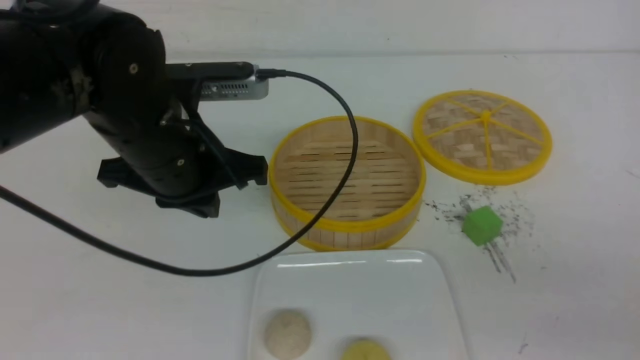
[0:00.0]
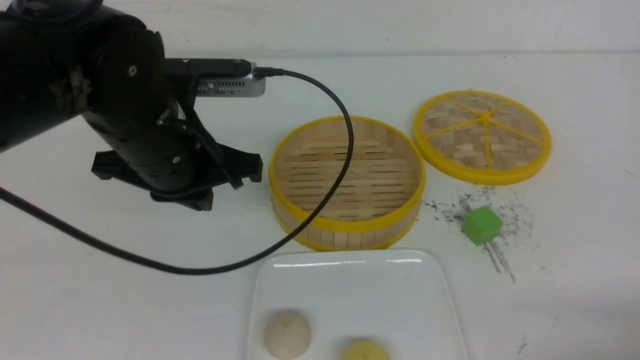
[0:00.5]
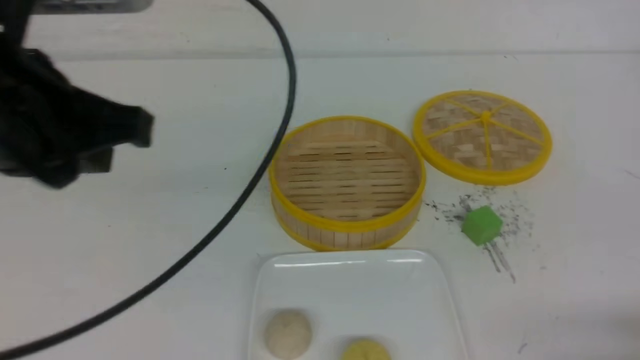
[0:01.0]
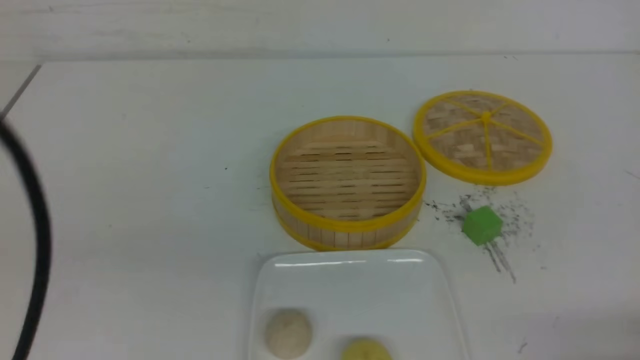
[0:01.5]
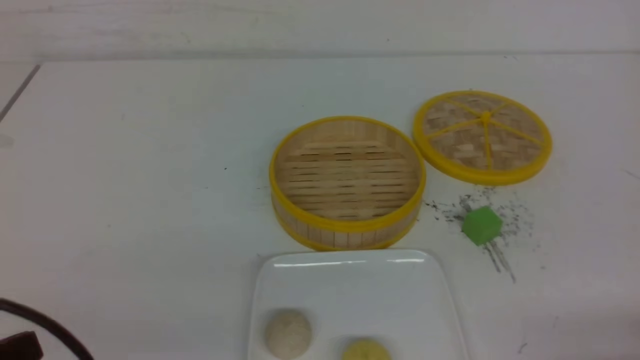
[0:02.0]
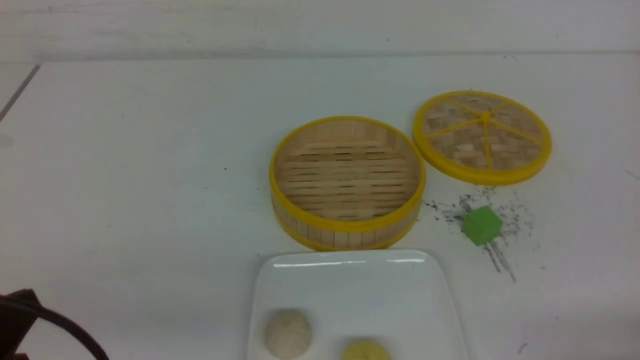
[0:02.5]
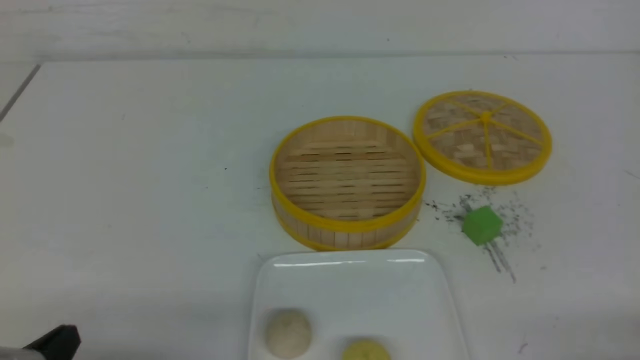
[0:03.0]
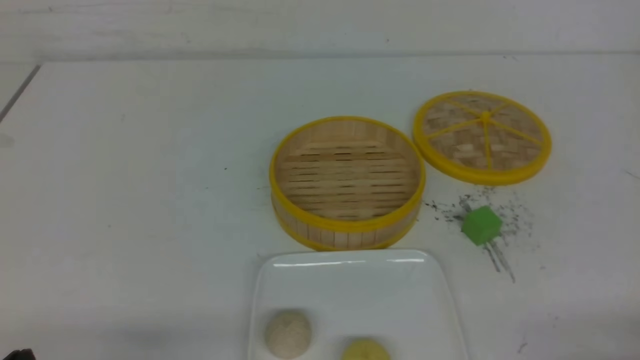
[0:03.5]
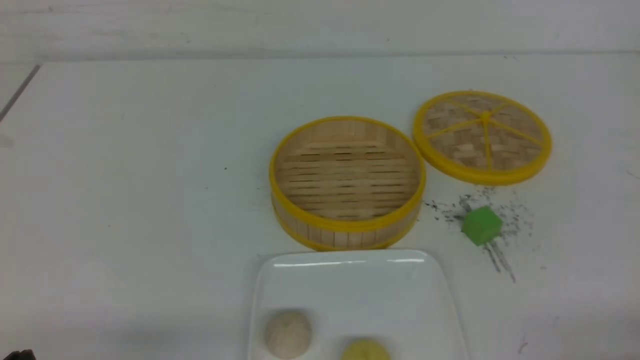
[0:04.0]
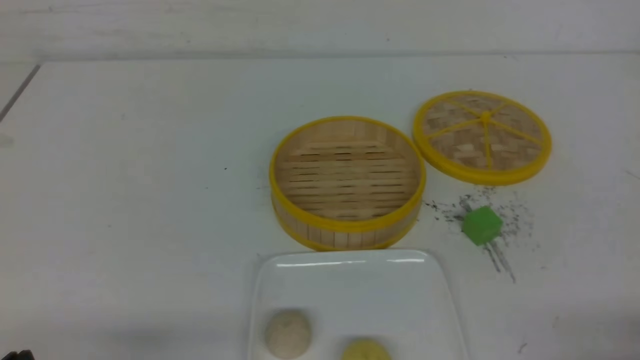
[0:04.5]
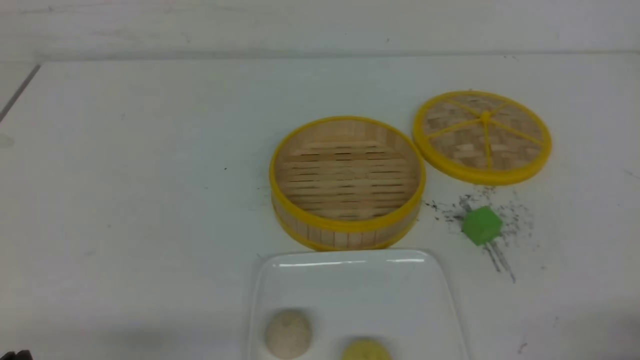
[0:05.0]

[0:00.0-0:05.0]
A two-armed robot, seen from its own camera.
0:00.0 to 0:02.5: The left gripper is displaced backward and to the left by approximately 25 cm. Meanwhile the right gripper heads downward, covering some 10 cm.
0:02.5 to 0:05.0: The left gripper shifts about 10 cm downward.

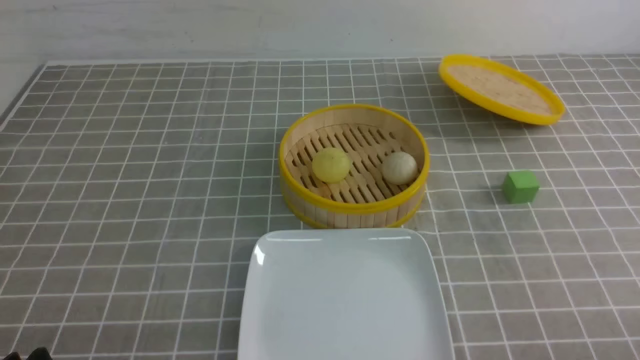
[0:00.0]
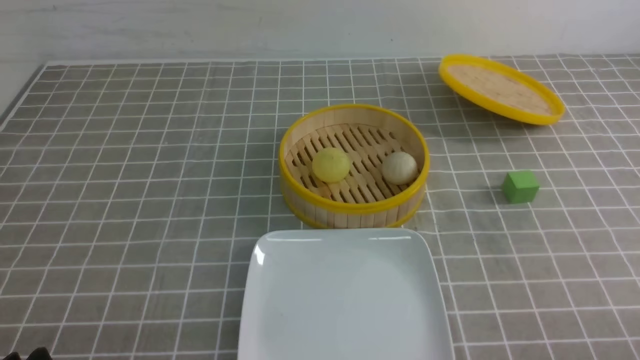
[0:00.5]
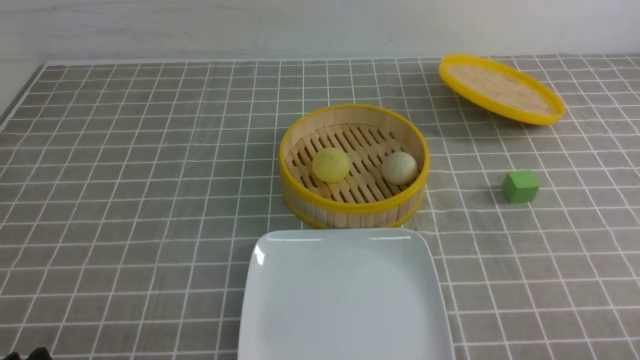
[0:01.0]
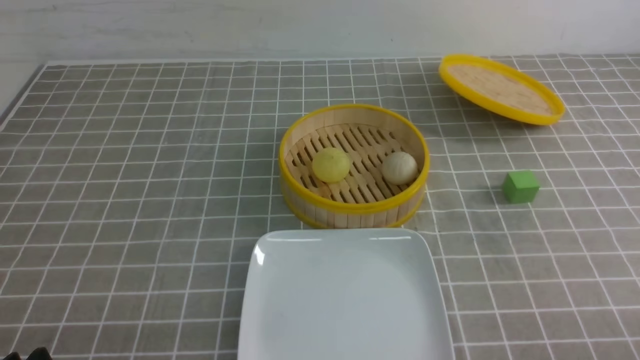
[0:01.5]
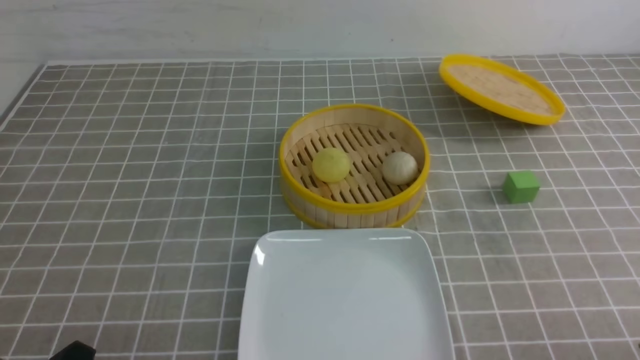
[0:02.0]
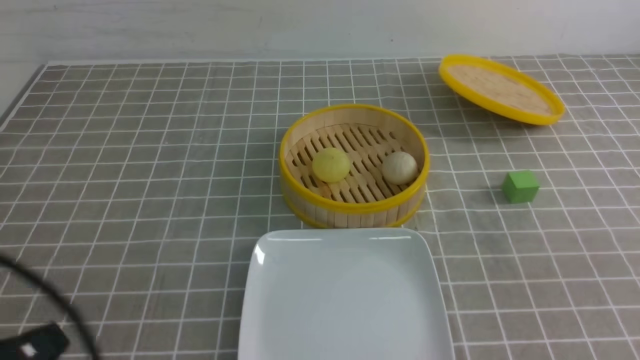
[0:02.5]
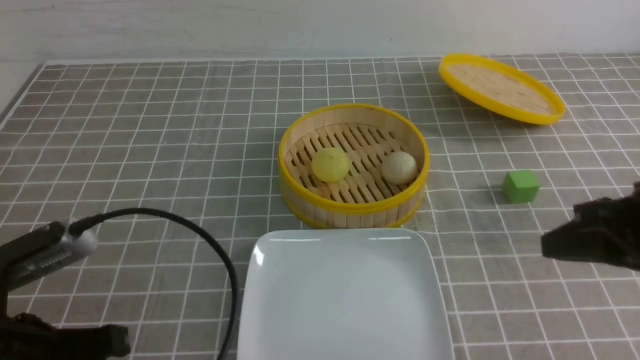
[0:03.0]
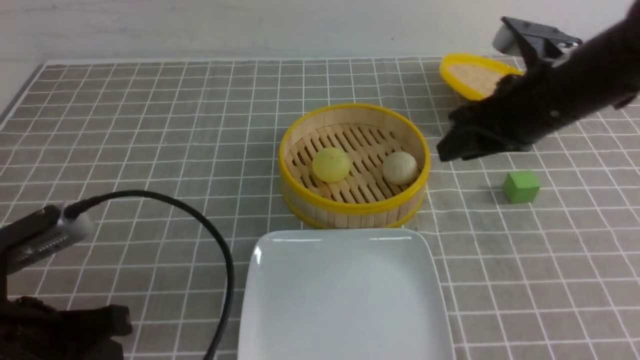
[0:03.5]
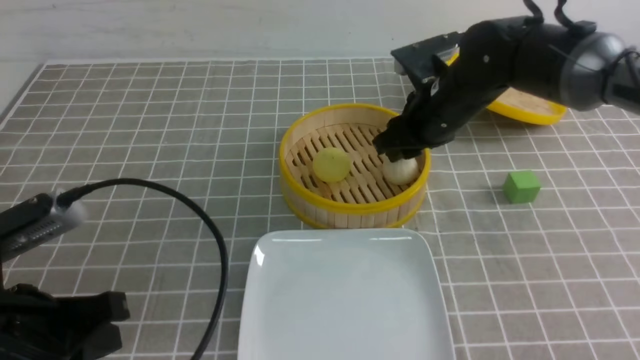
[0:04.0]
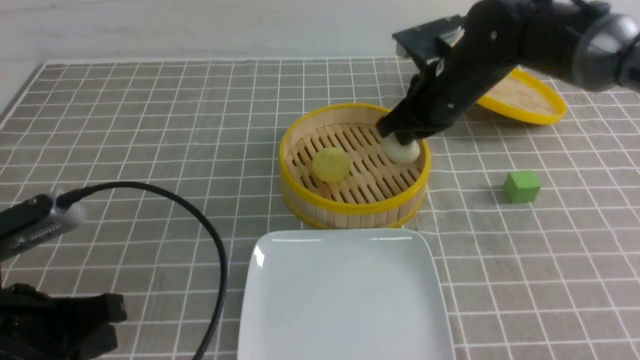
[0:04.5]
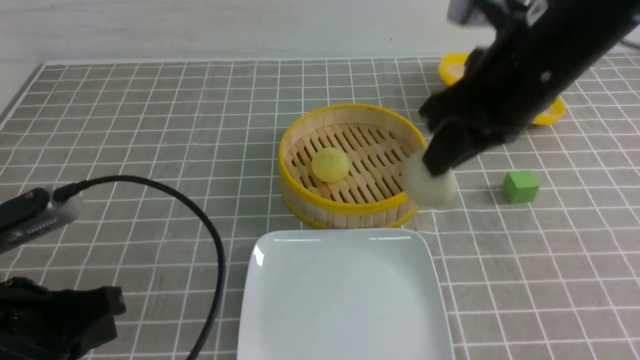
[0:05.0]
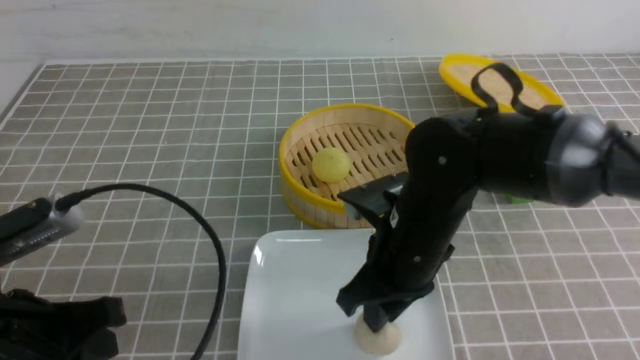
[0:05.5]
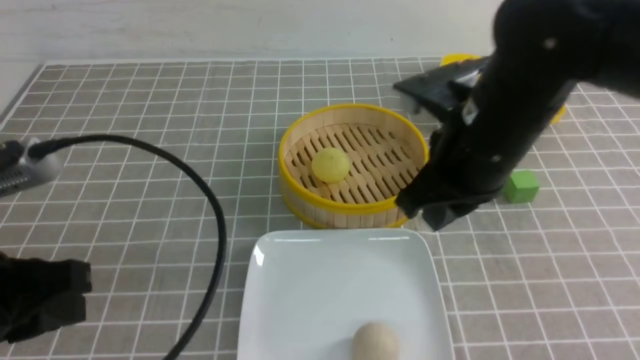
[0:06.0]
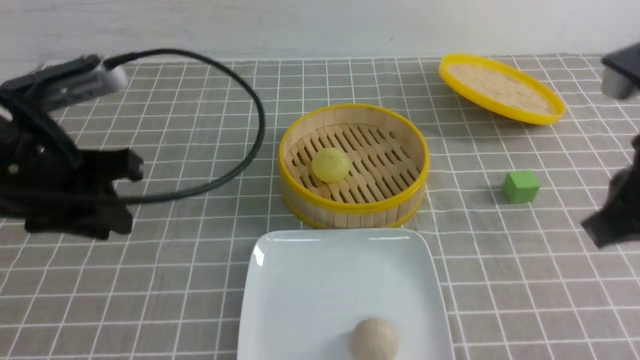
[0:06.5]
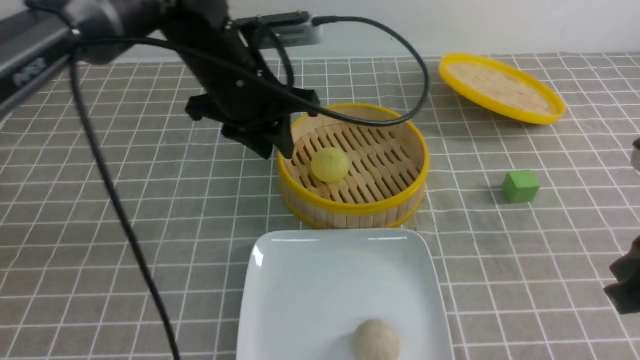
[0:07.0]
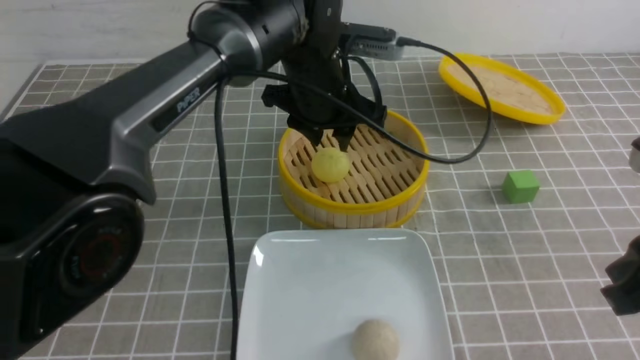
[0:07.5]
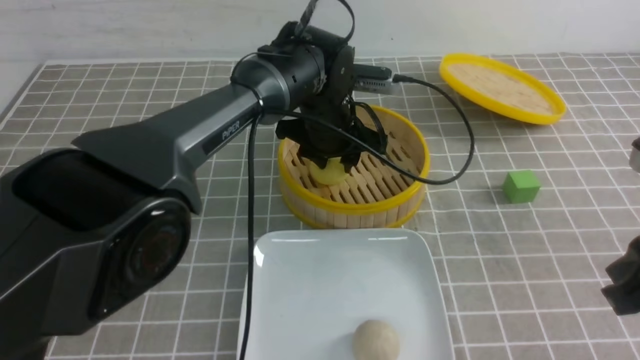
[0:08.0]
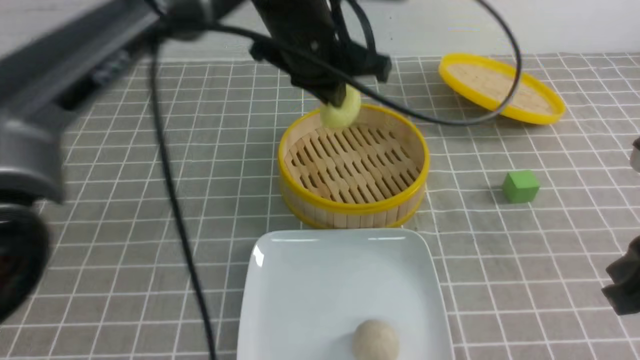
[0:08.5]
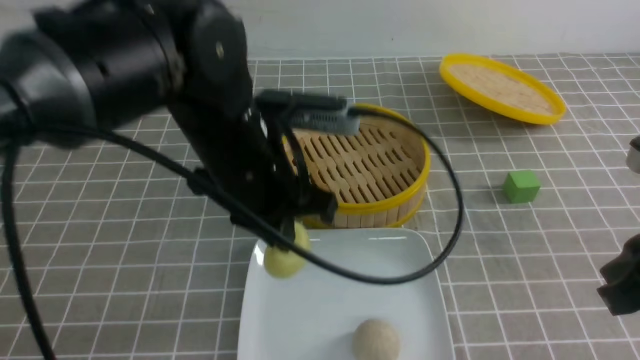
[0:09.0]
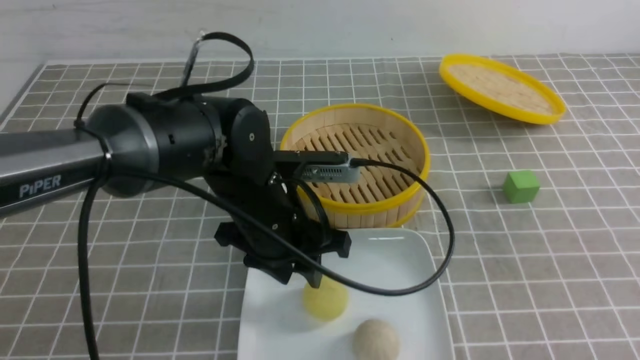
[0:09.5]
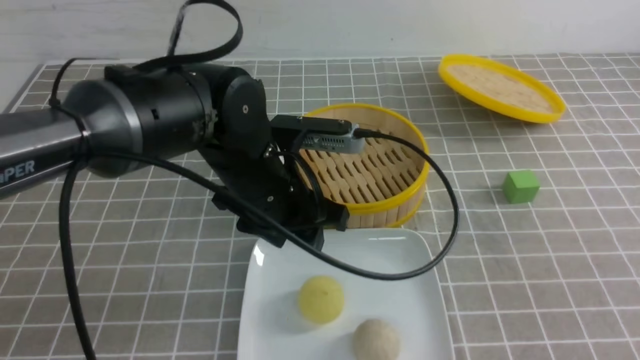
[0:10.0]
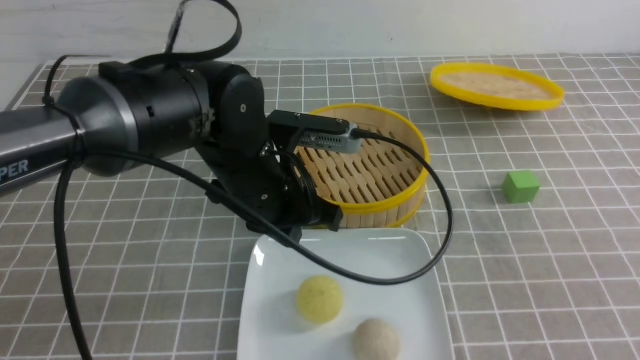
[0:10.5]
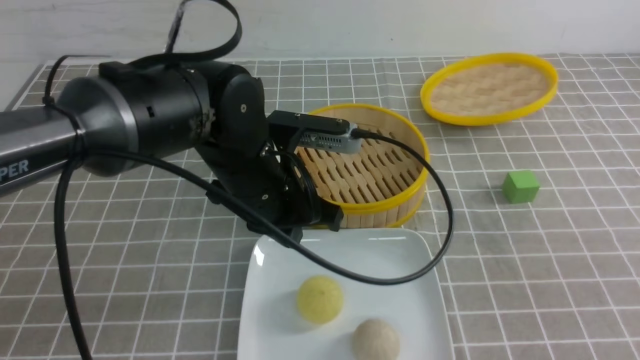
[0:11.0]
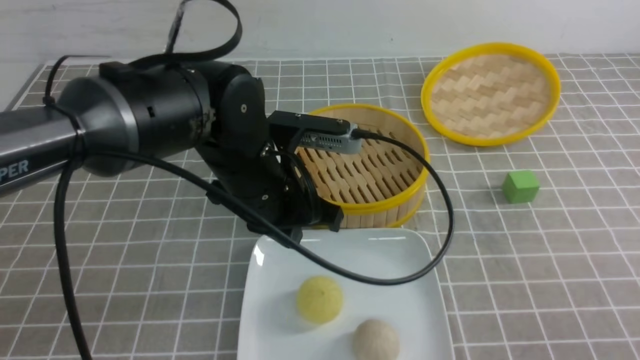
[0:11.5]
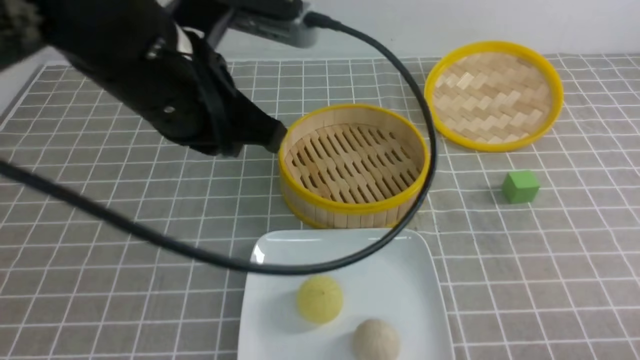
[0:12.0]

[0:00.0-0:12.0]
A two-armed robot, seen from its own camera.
Step, 0:00.0 to 0:04.0: use the right arm to grab the steamed stuffed bun that is closest to it.
Step, 0:04.5 to 0:05.5: use the right arm to put the steamed stuffed bun into the plate.
Step, 0:06.0 to 0:08.0: use the left arm to grab the steamed stuffed bun that is closest to it.
Step, 0:08.5 to 0:09.5: use the left arm to put the steamed stuffed bun into the plate.
0:02.0 to 0:04.0: The left gripper shifts about 10 cm forward and upward, and closes up. The right gripper travels forward and to the left by roughly 40 cm, and closes, then opens again.
0:04.0 to 0:06.0: The left gripper travels upward by approximately 5 cm. Meanwhile the right gripper goes roughly 15 cm backward and upward, and closes up.
0:06.0 to 0:08.0: The left gripper shifts about 40 cm forward and to the right; the right gripper goes roughly 15 cm to the right and backward.
0:08.0 to 0:10.0: The left gripper heads backward and to the left, covering some 15 cm, goes upward and returns, approximately 15 cm each way, and closes and opens again. The right gripper heads backward and to the right, covering roughly 10 cm.
0:10.0 to 0:12.0: The right gripper heads downward, covering some 15 cm; the left gripper goes some 15 cm upward and to the left, and closes its fingers.

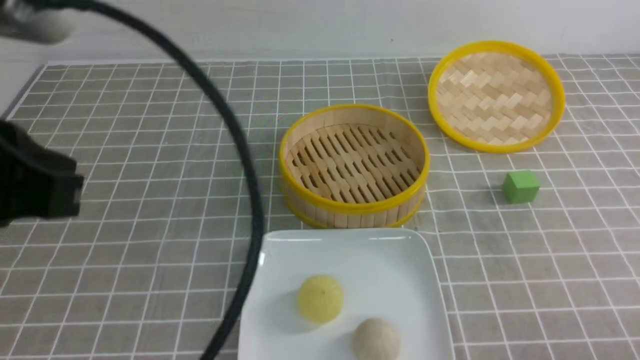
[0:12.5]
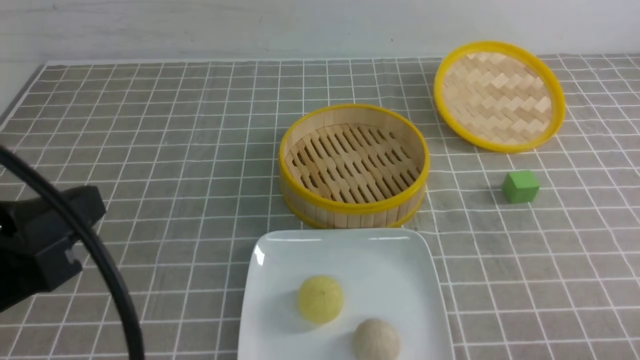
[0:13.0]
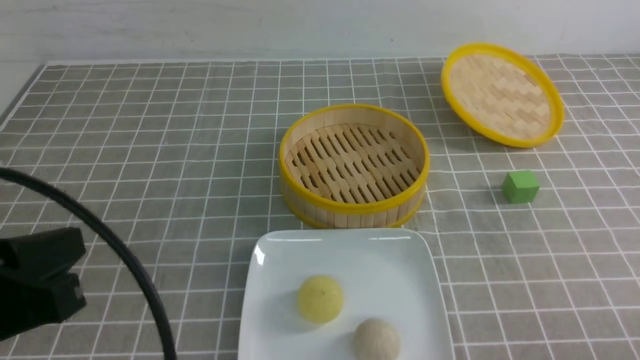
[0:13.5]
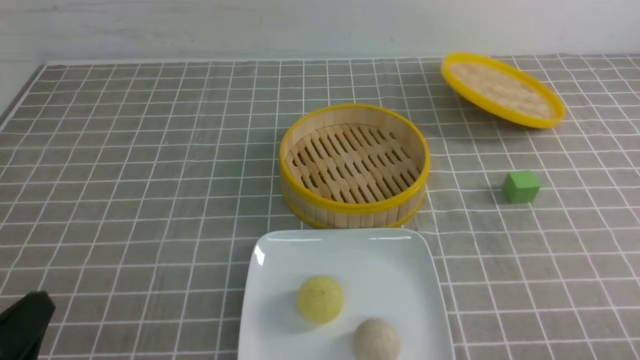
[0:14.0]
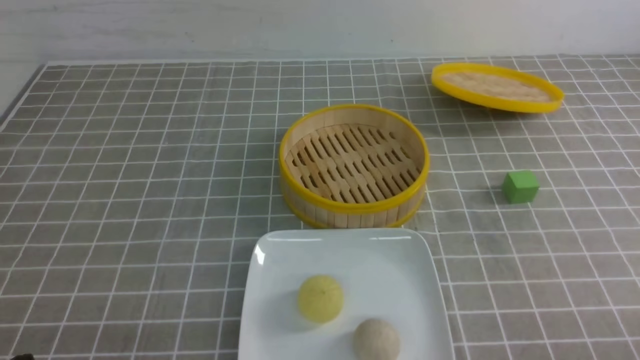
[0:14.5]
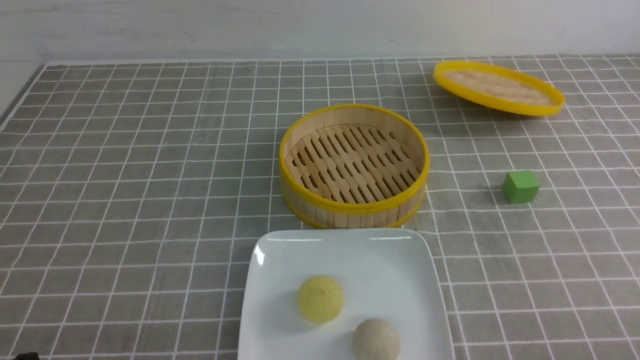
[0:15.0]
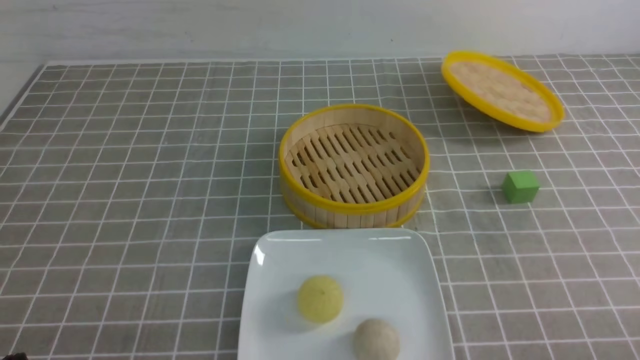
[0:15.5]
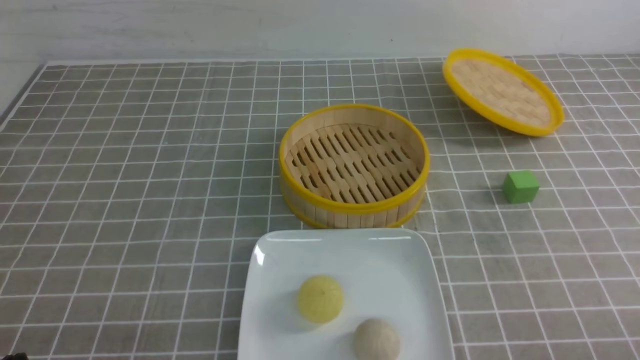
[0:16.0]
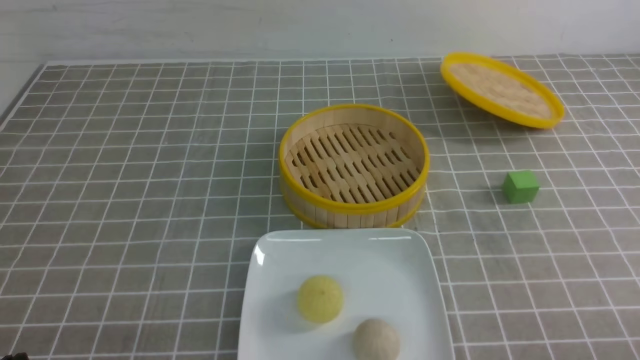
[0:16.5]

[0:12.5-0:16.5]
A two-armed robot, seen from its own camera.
0:12.5 to 0:14.5: The left gripper heads downward, covering some 25 cm.
0:14.5 to 0:16.5: The two grippers keep their place.
